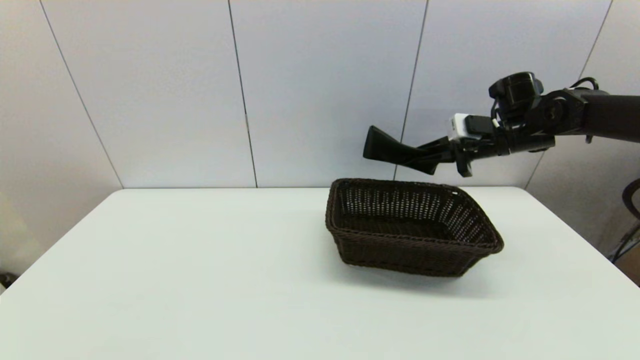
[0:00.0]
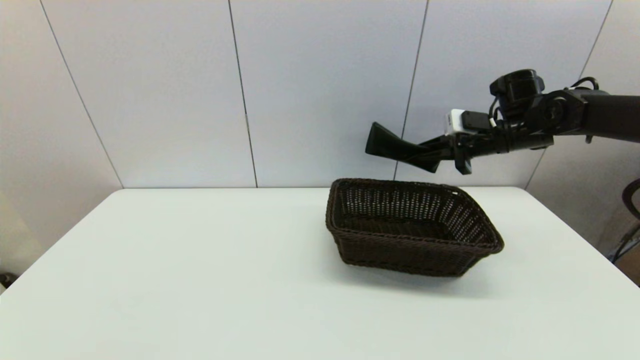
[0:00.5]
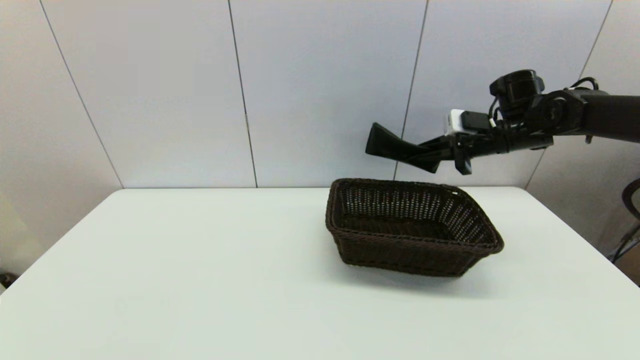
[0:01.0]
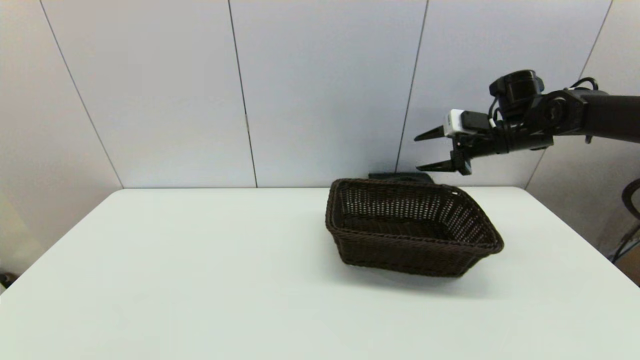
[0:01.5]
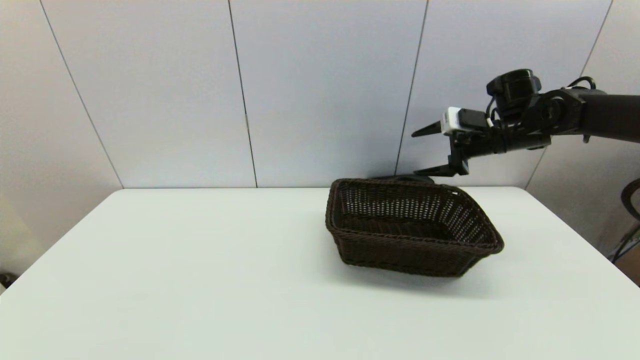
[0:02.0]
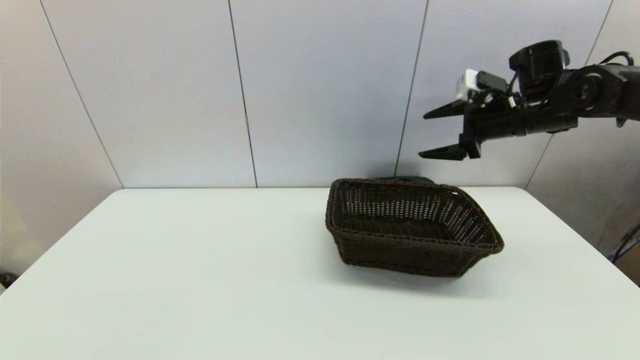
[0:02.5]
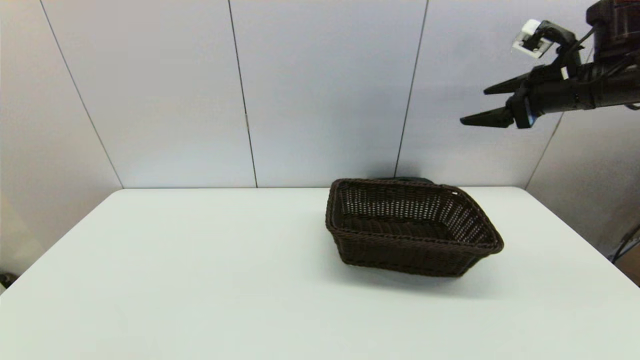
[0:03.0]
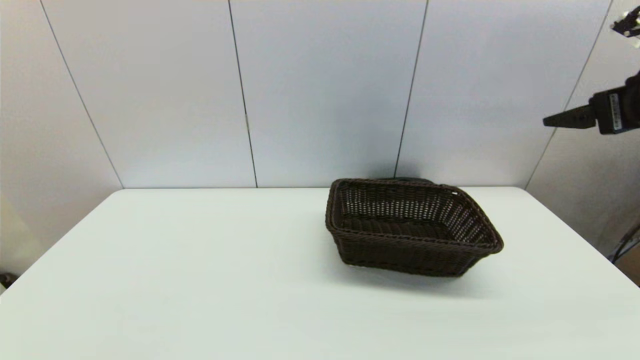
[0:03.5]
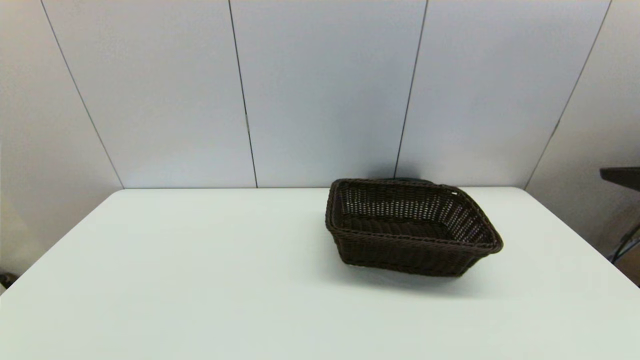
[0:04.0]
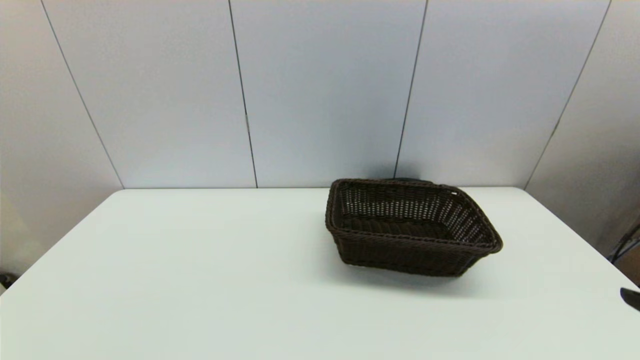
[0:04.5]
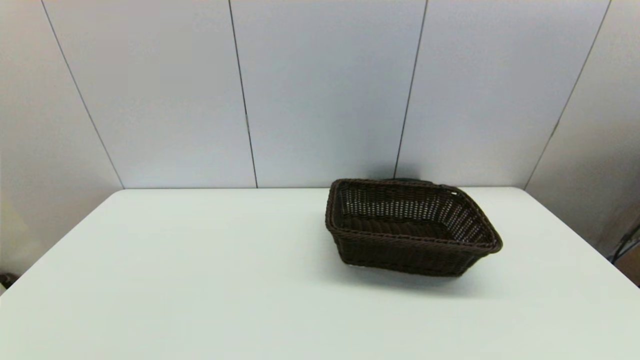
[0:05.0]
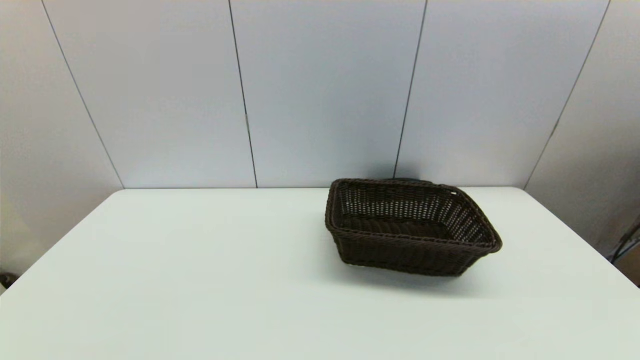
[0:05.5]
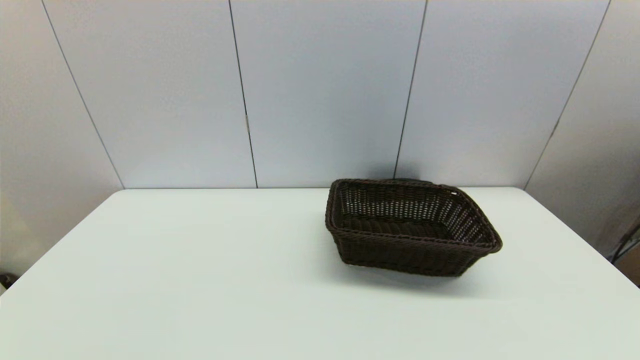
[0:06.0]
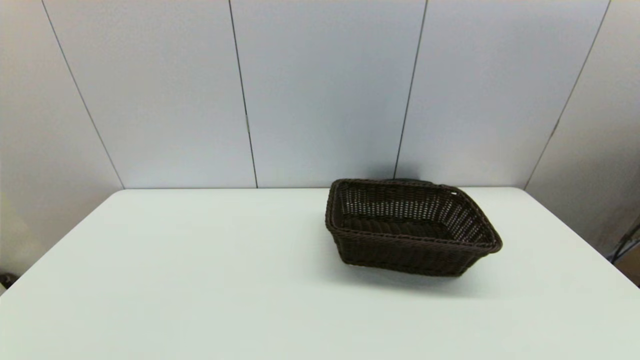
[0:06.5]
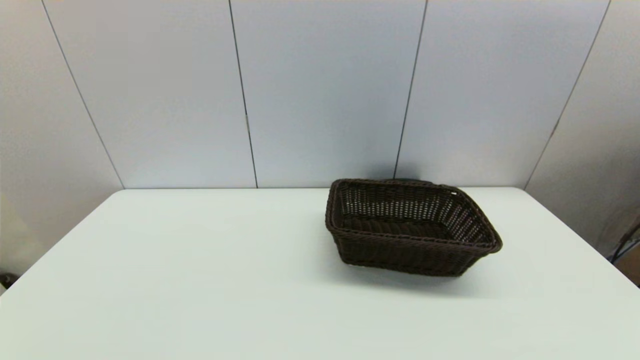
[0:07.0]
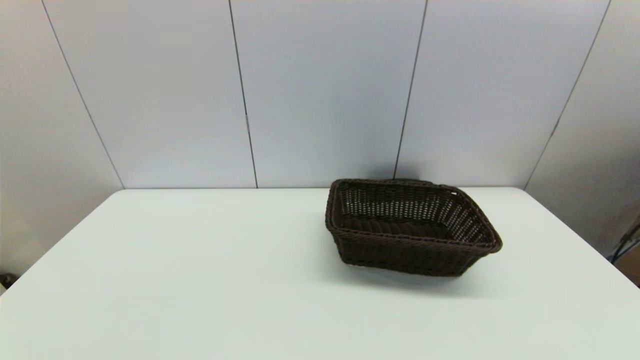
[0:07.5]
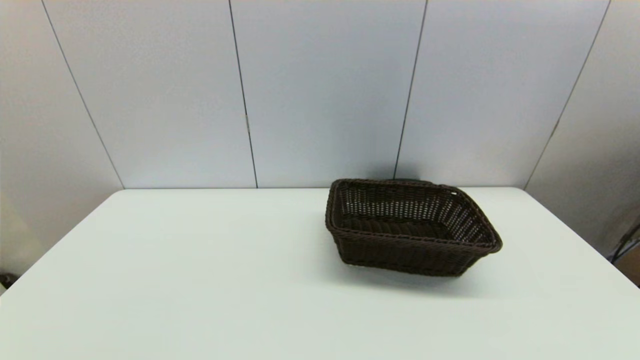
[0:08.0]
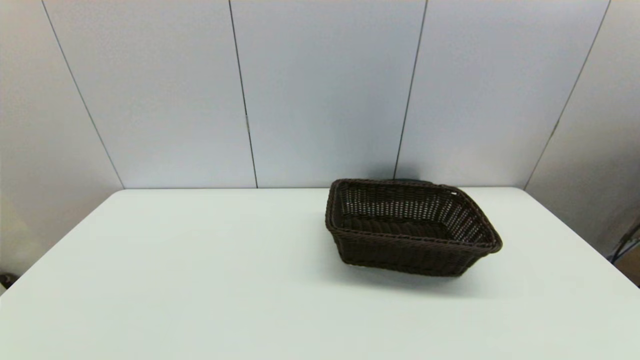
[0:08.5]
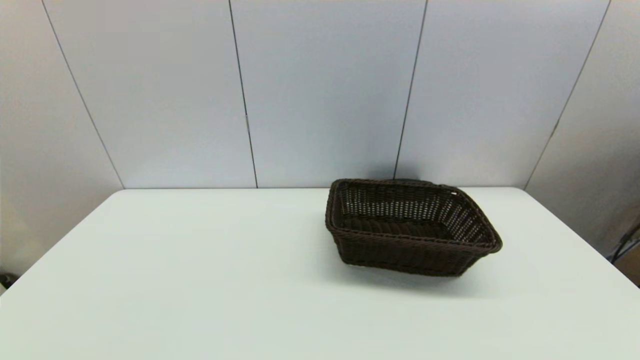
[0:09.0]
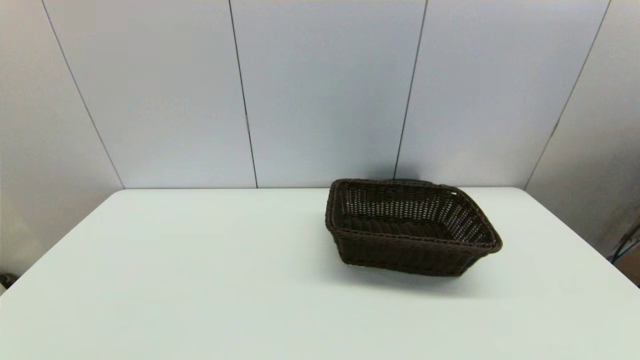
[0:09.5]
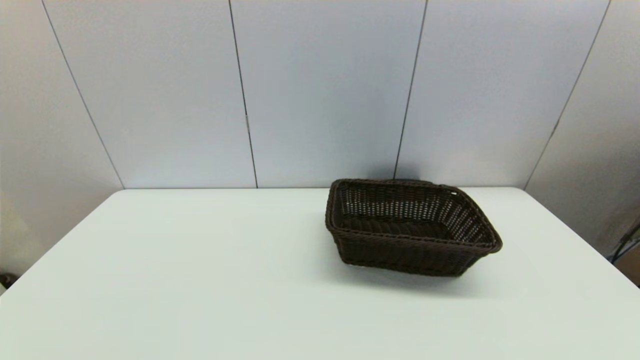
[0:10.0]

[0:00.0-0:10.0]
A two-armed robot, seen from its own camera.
0:00.0 to 0:02.0: The right gripper opens its fingers.
0:02.0 to 0:04.0: The right gripper is displaced backward by roughly 30 cm.
0:08.0 to 0:10.0: Neither gripper changes place.
